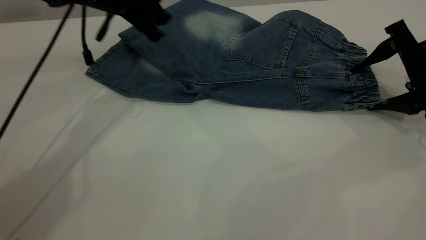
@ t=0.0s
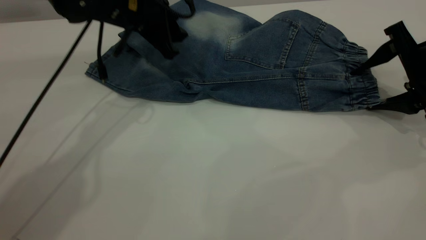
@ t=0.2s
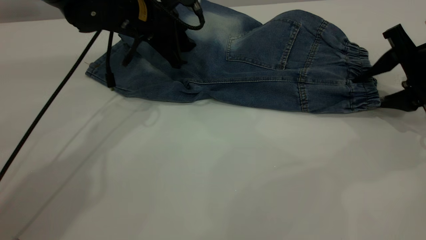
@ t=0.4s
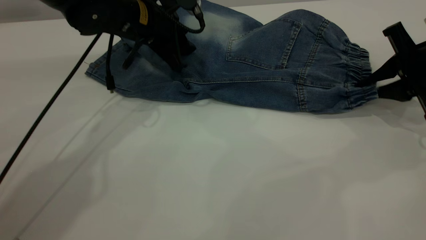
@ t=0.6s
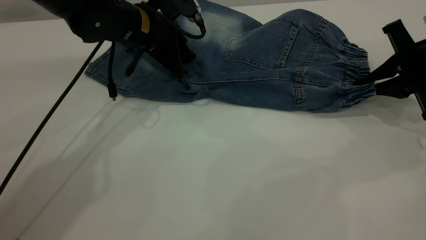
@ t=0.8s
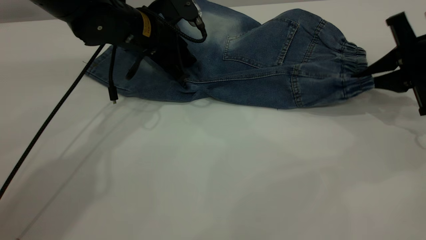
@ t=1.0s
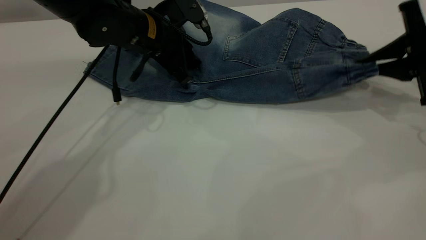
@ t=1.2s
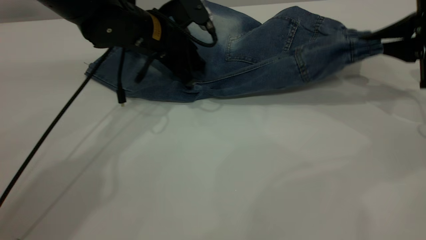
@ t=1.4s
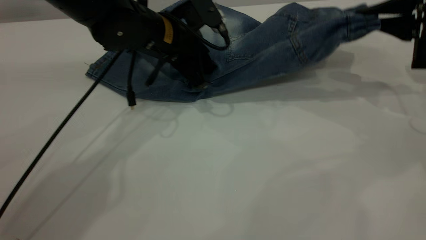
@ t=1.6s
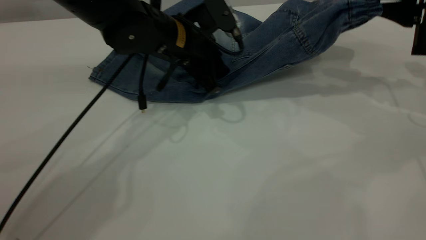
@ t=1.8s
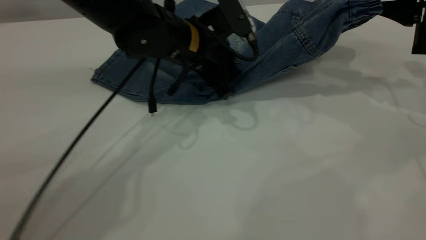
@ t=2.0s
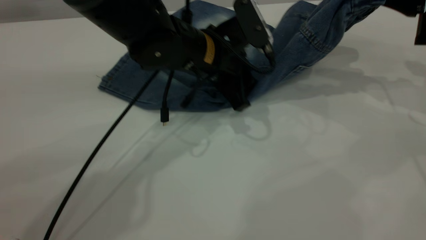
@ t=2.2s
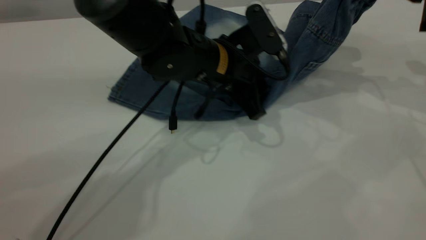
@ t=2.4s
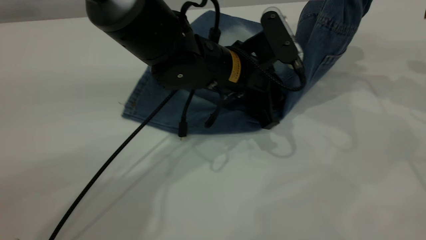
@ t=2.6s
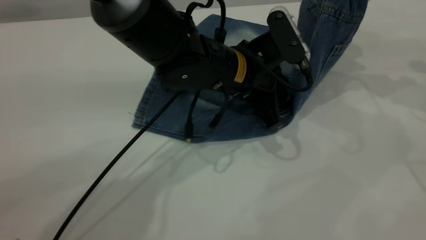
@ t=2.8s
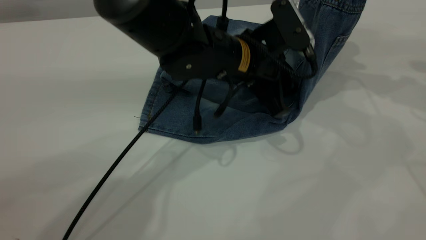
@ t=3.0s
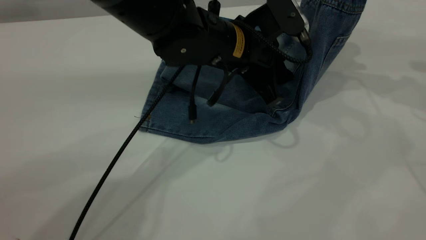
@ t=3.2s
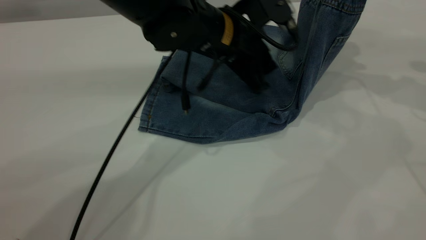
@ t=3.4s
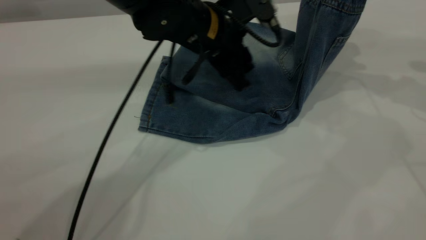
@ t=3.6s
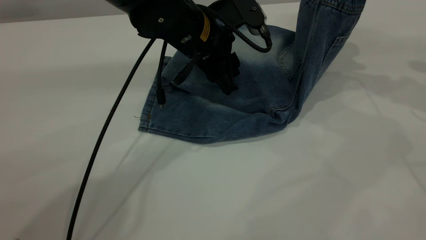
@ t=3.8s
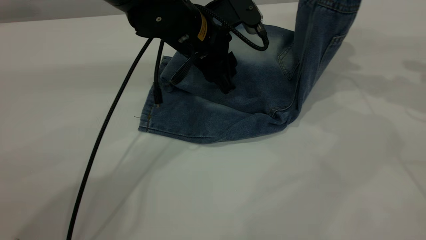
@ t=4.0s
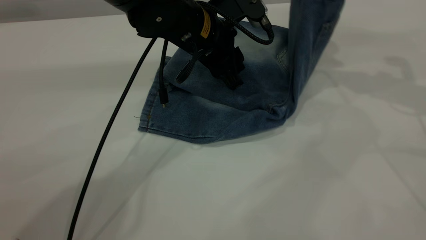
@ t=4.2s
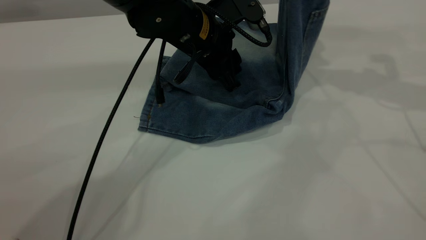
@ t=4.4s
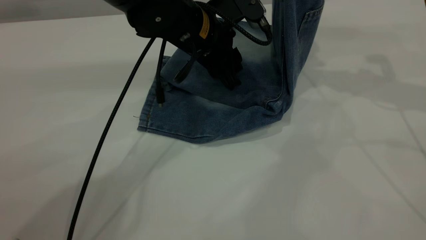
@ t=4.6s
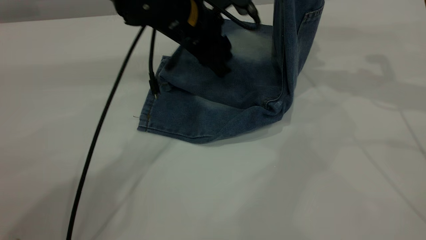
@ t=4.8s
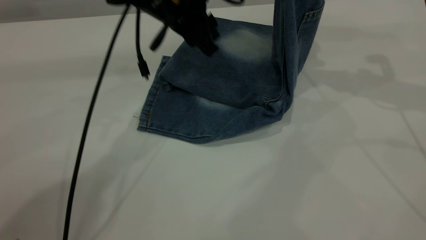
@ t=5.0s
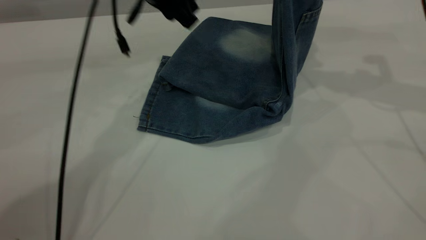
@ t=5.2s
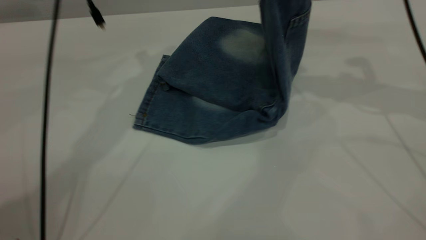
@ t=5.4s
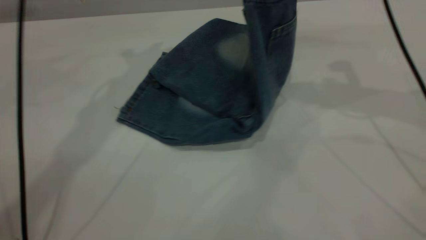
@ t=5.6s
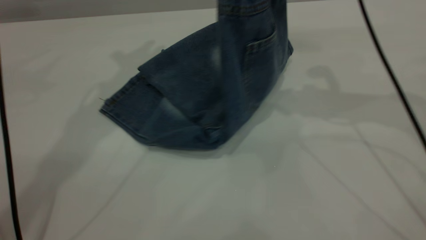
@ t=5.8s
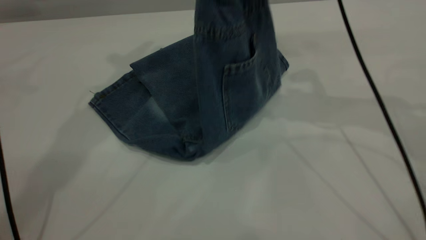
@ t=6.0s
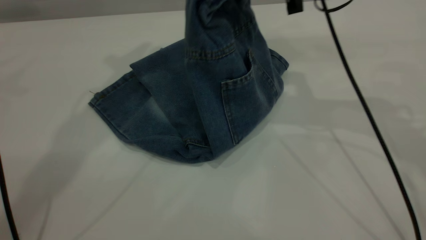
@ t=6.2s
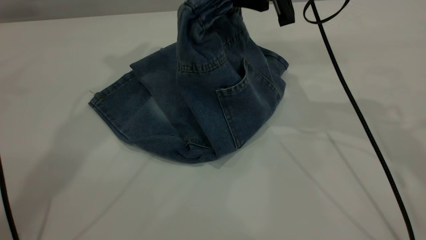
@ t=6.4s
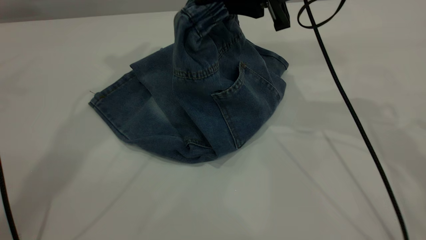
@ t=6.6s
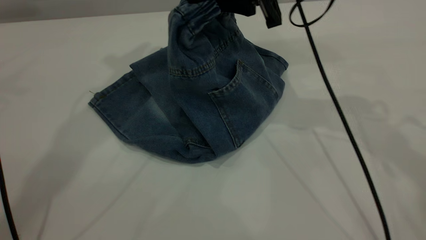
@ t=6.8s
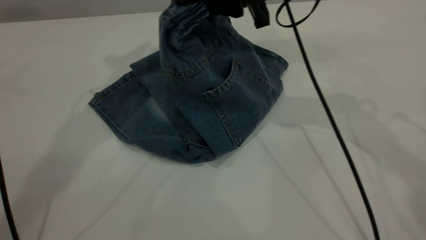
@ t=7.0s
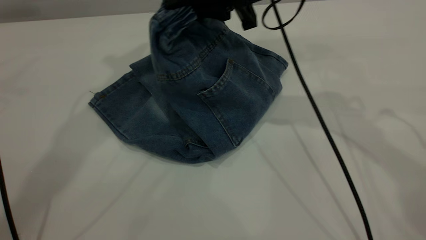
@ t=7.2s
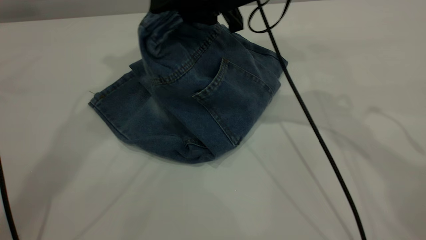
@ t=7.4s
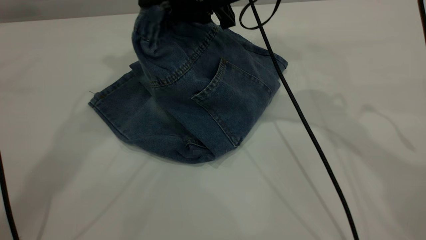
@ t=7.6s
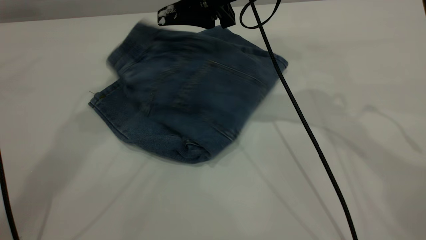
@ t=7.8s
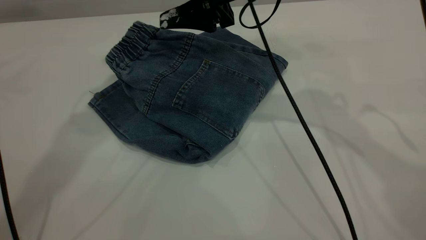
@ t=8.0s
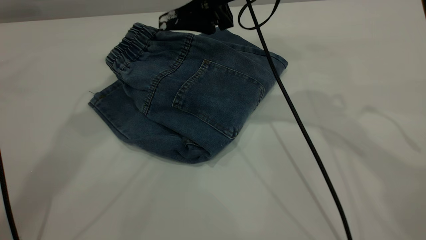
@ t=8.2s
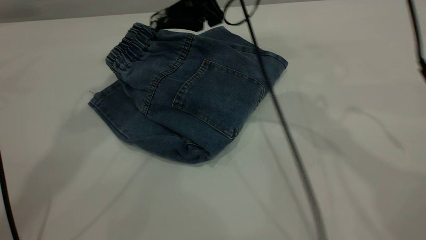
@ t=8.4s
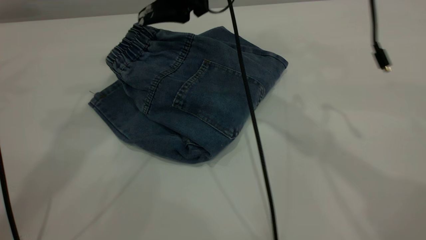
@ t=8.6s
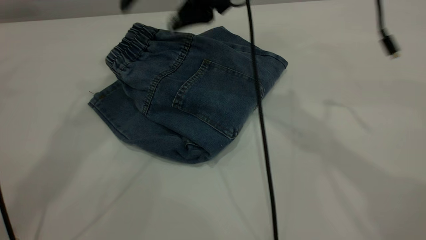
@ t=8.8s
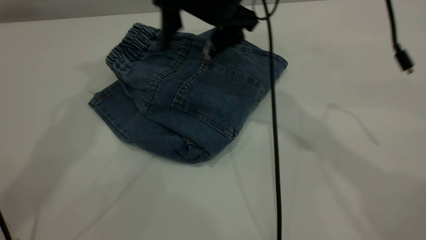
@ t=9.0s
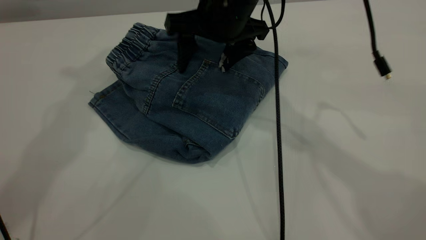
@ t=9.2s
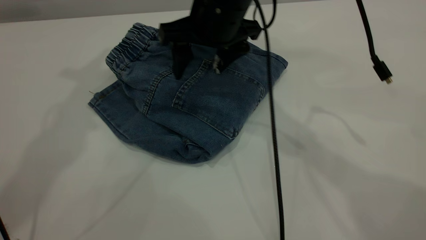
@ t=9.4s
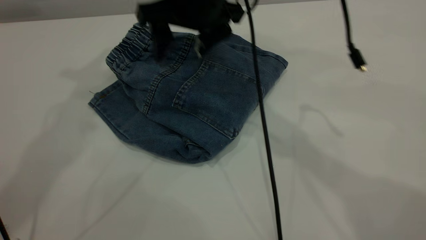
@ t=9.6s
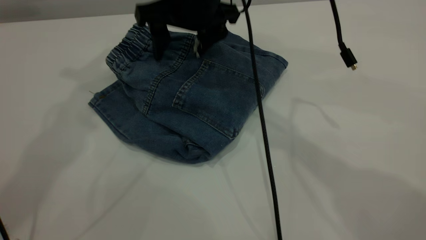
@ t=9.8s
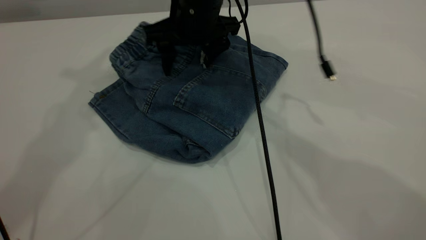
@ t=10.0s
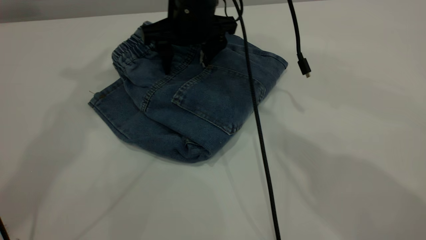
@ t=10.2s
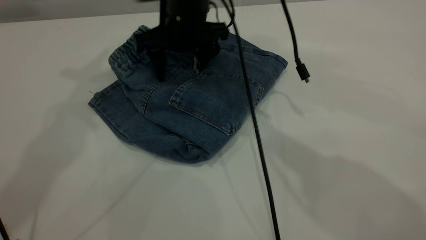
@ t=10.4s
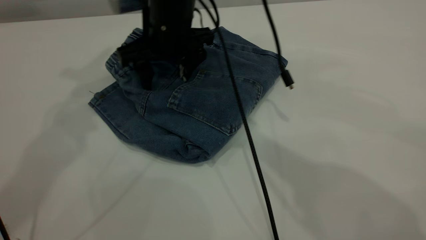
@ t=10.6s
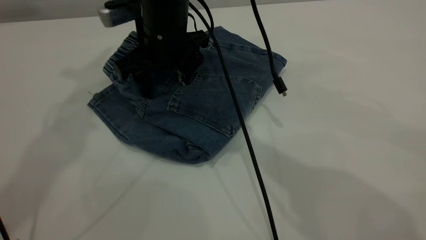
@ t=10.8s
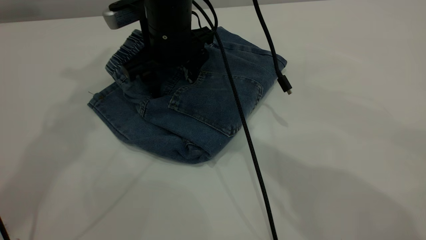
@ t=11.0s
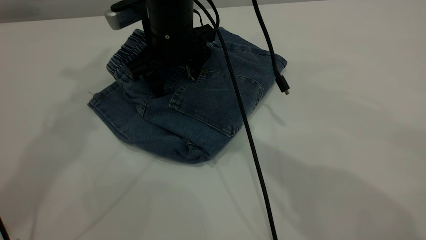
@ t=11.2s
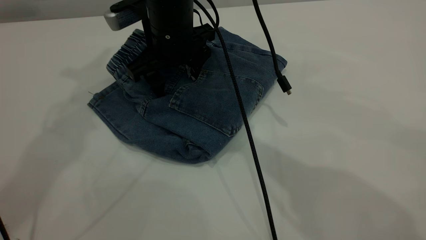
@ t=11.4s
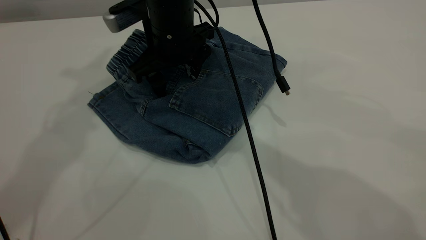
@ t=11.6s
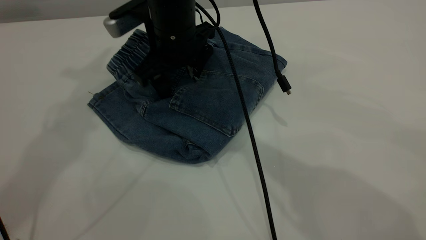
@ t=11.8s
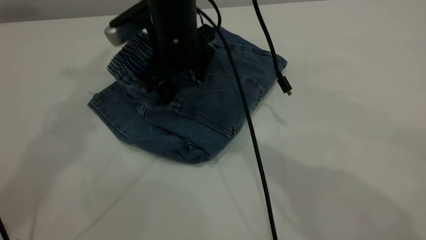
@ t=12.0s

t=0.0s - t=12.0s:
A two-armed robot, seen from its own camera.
Step, t=0.0s - t=8.4s: Fold your pants from right to left.
t=0.0s - t=1.6s: The right gripper is displaced upward by approximately 5 cm, and closes. The left gripper shifts approximately 10 cm to the right and downward.
t=1.6s - t=3.0s: The right gripper goes some 10 cm upward; the left gripper shifts some 10 cm to the right and backward.
t=3.0s - t=4.4s: The grippers both shift to the left by about 5 cm.
t=4.4s - t=6.0s: The right gripper is displaced to the left by roughly 10 cm. The left gripper goes some 30 cm upward and to the left.
t=6.0s - t=7.6s: The right gripper is displaced to the left by approximately 10 cm.
t=7.6s - t=9.0s: The right gripper opens its fingers. The left gripper ends up about 5 cm from where it was.
t=9.0s - t=10.4s: The right gripper heads to the left, covering roughly 5 cm.

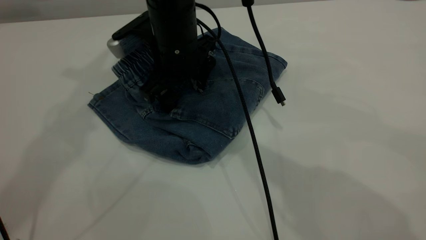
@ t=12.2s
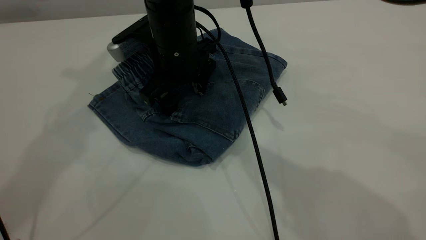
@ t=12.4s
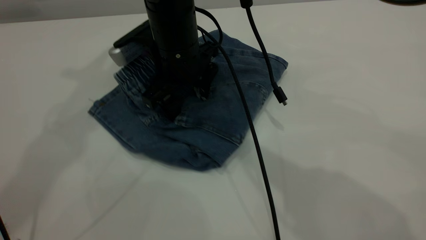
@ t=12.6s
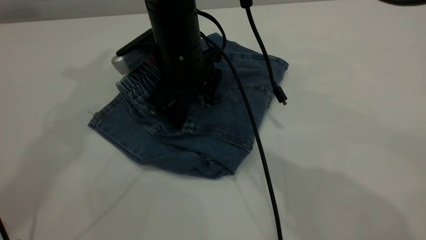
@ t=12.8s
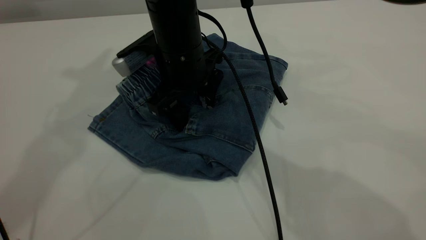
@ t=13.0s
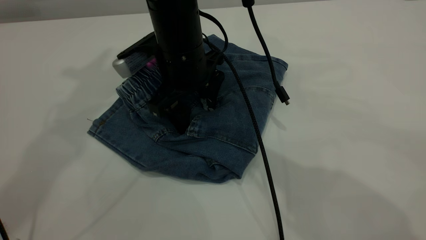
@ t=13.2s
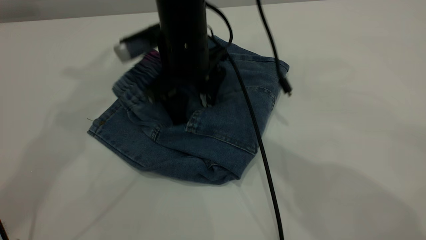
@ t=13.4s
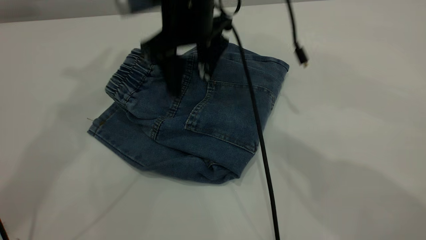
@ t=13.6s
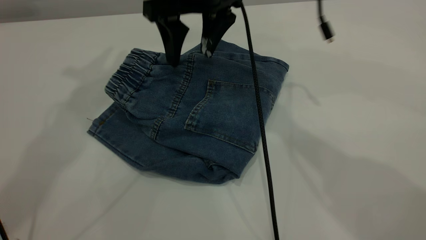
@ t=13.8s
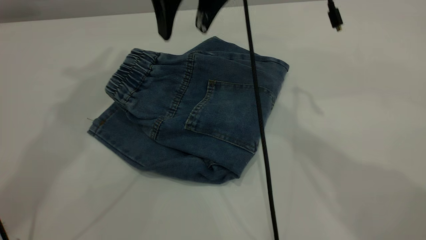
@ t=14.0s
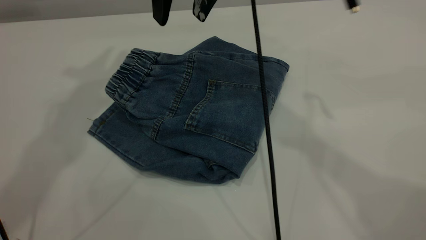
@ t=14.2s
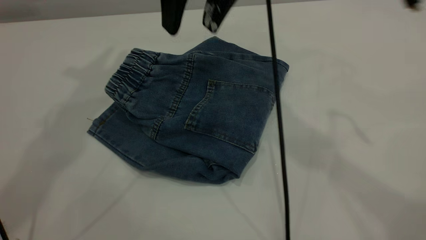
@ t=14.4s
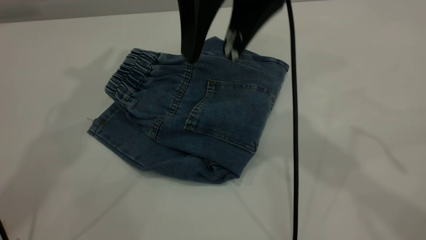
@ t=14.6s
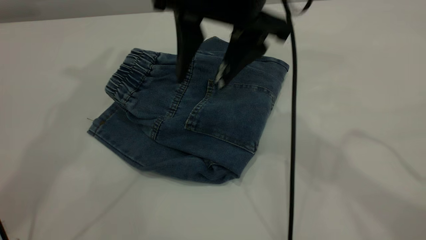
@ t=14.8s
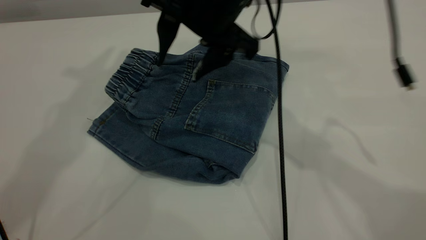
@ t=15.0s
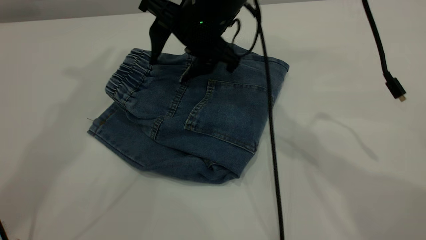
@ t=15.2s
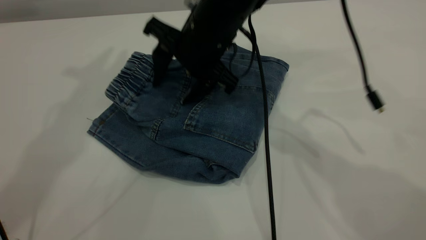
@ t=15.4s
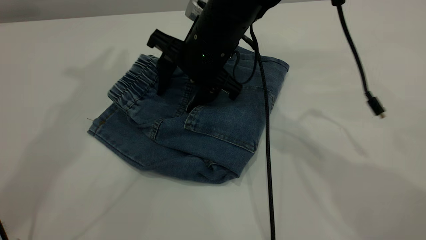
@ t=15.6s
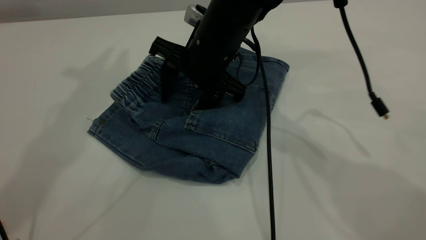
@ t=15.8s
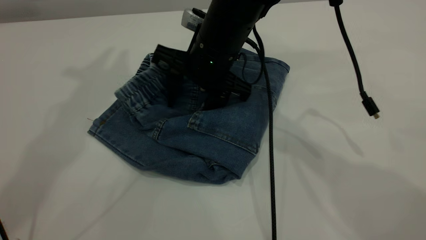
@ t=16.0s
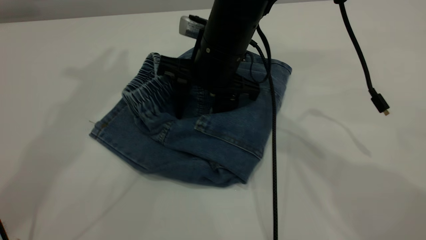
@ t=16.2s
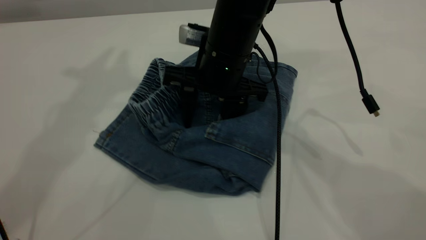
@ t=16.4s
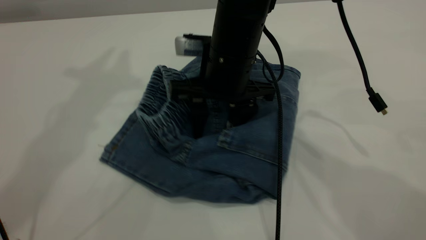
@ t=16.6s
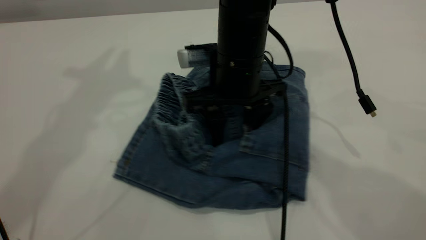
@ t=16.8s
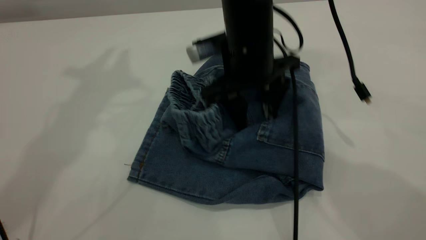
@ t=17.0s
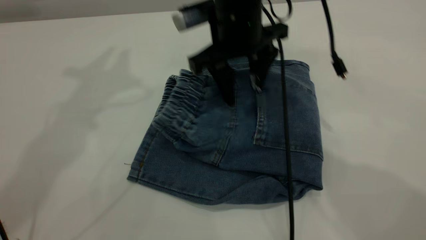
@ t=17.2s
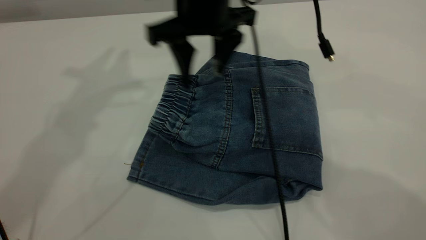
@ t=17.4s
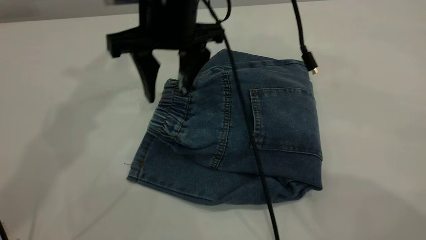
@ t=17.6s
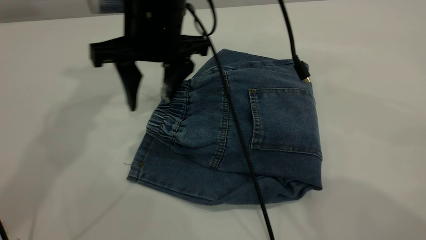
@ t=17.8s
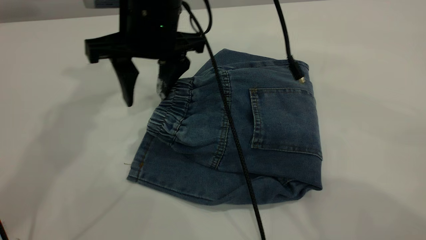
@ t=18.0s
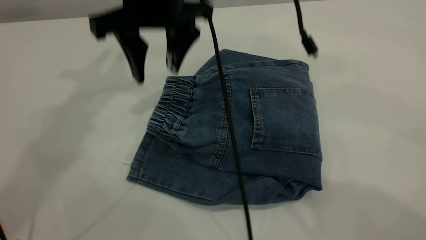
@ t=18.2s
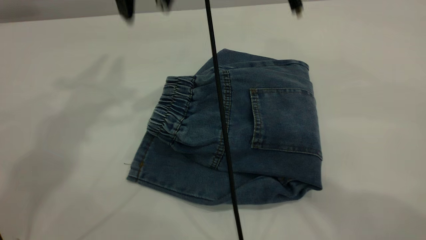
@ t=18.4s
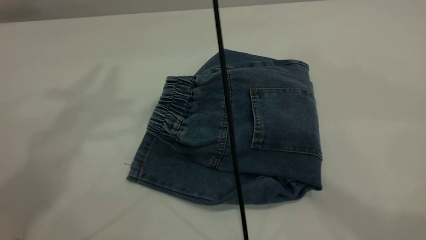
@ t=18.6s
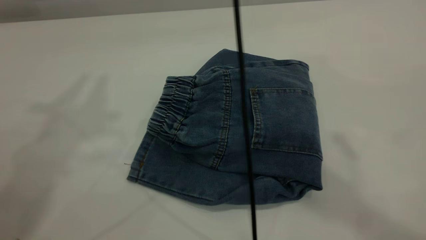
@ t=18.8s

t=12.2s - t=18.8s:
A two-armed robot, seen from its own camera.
t=12.2s - t=13.8s: The right gripper goes about 10 cm upward.
t=13.8s - t=15.4s: The right gripper goes some 10 cm downward.
t=17.2s - t=18.8s: The left gripper travels backward and upward by some 15 cm, while the right gripper heads upward, covering approximately 30 cm.
